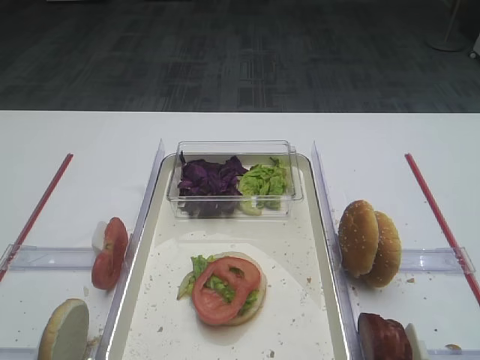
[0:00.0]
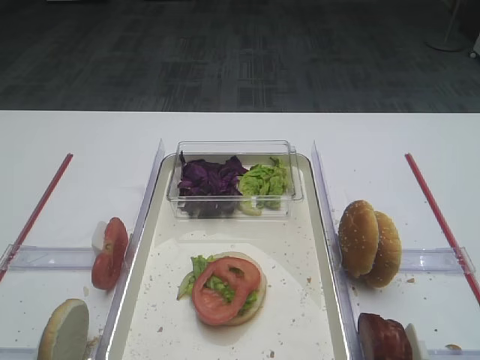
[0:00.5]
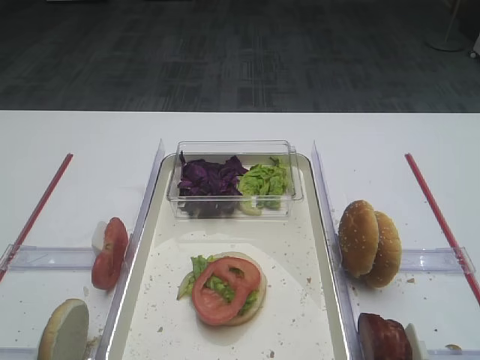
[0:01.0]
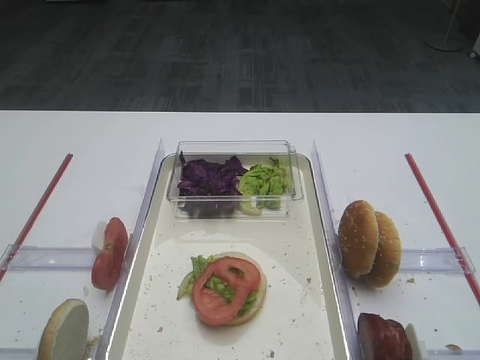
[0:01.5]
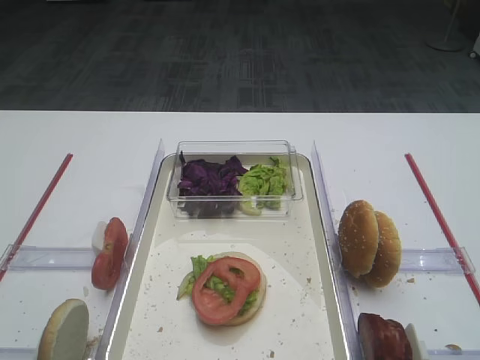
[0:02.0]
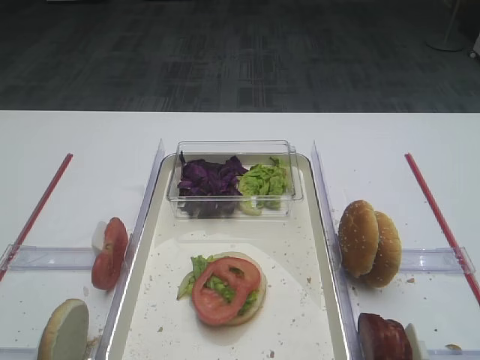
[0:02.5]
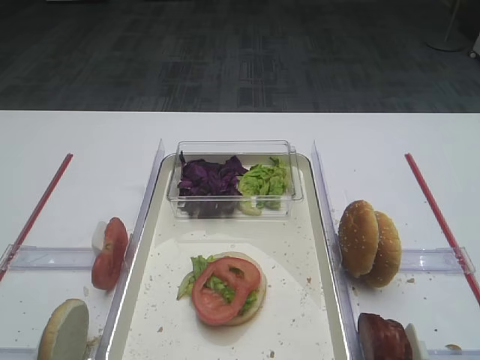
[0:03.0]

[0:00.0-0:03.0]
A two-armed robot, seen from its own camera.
0:00.0 to 0:03.0: Both grippers stay put.
